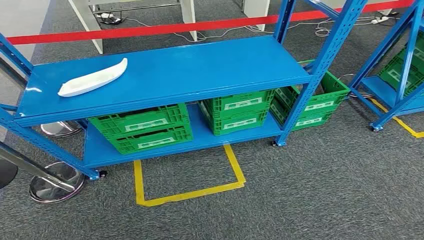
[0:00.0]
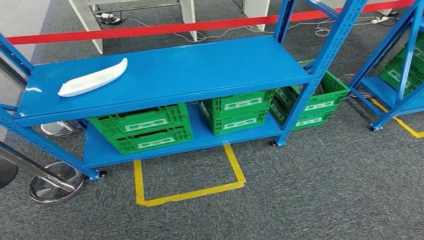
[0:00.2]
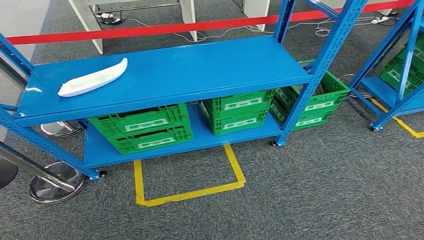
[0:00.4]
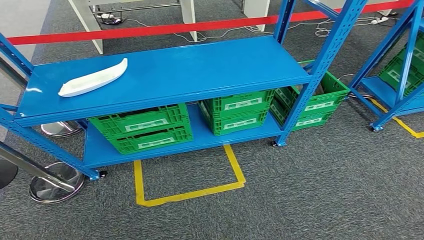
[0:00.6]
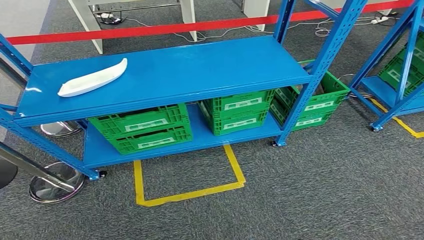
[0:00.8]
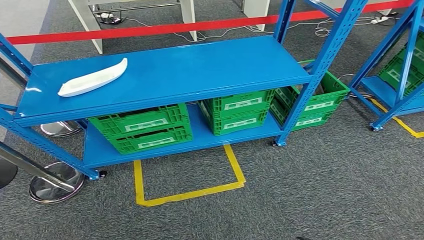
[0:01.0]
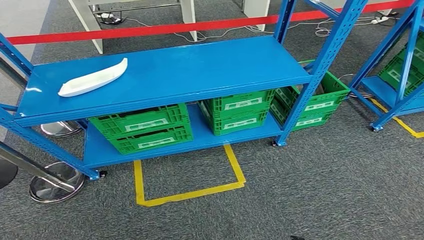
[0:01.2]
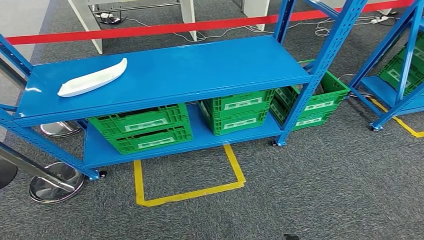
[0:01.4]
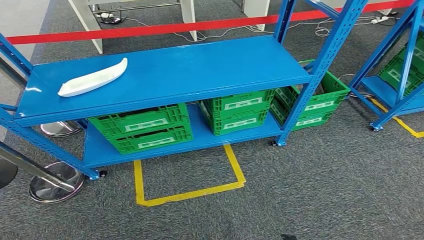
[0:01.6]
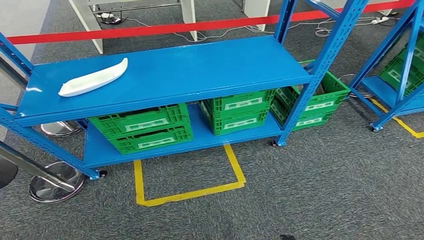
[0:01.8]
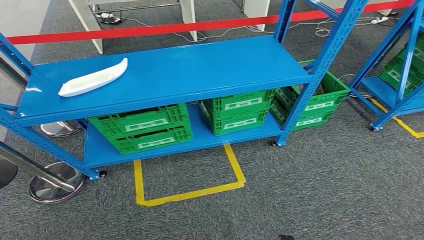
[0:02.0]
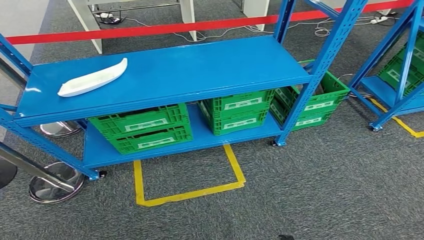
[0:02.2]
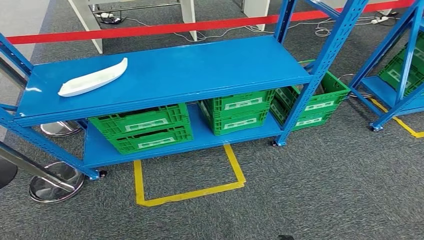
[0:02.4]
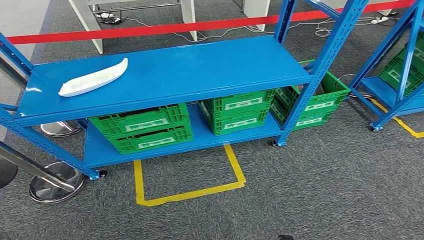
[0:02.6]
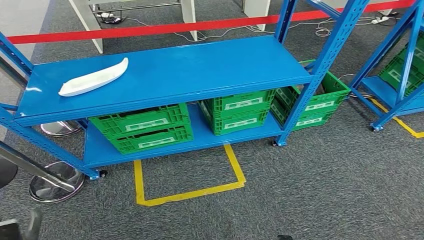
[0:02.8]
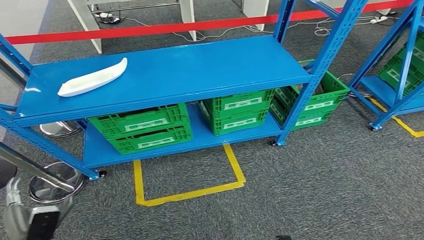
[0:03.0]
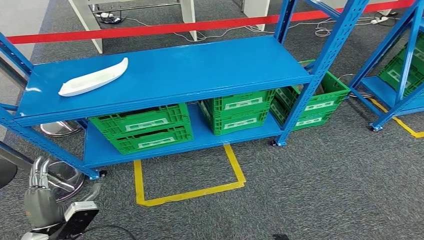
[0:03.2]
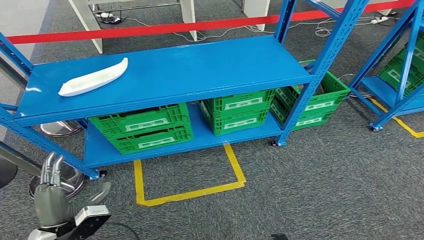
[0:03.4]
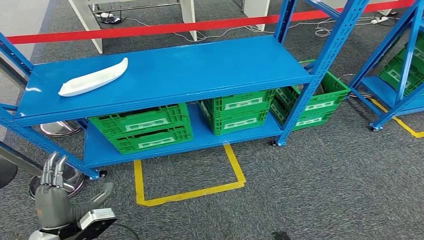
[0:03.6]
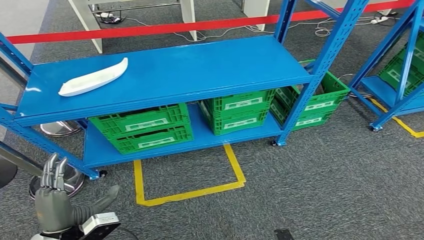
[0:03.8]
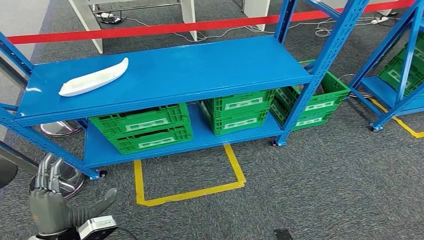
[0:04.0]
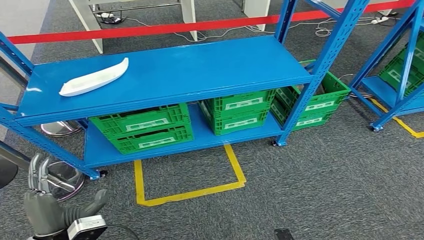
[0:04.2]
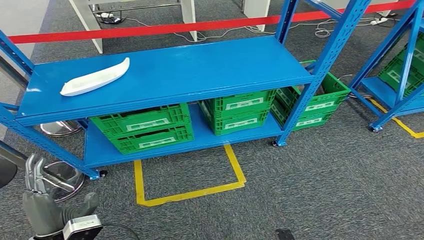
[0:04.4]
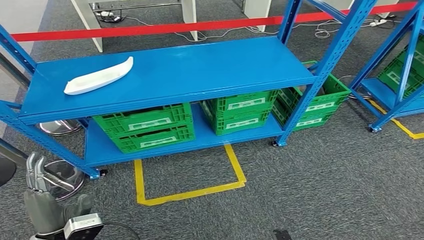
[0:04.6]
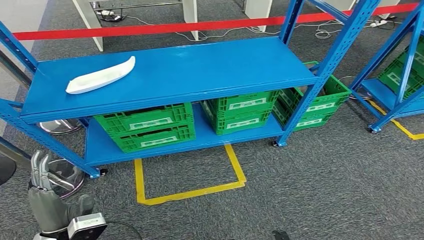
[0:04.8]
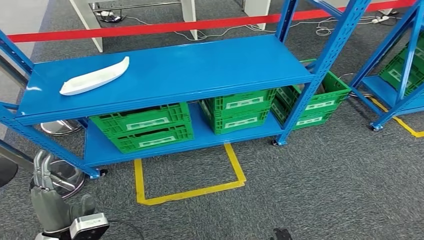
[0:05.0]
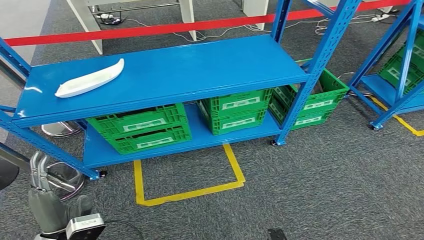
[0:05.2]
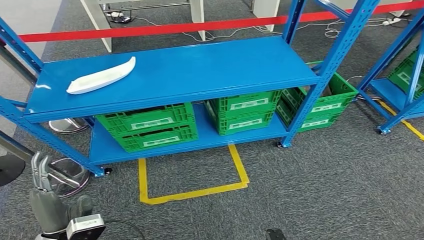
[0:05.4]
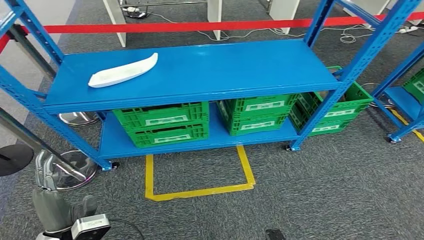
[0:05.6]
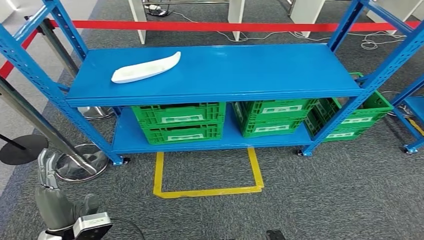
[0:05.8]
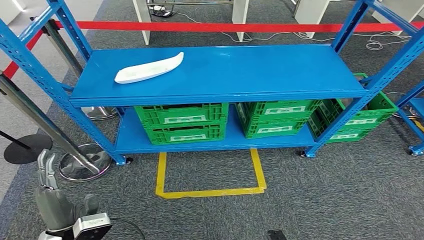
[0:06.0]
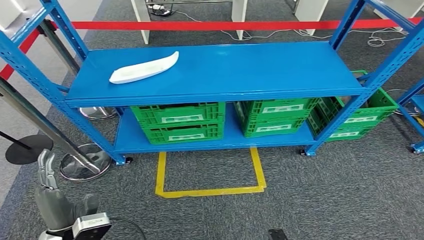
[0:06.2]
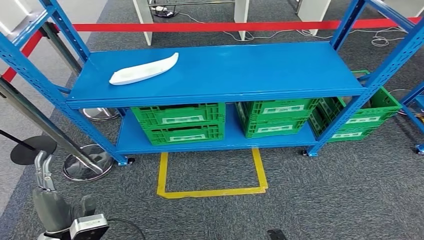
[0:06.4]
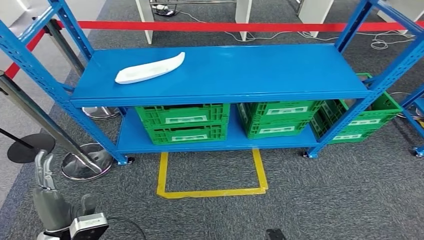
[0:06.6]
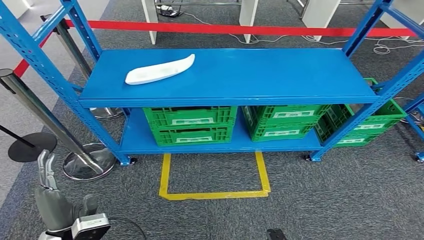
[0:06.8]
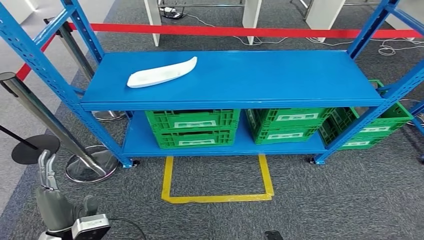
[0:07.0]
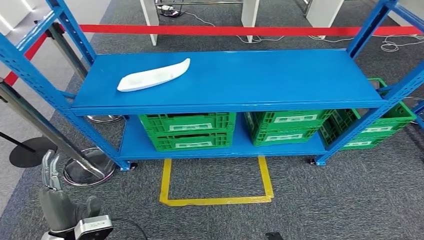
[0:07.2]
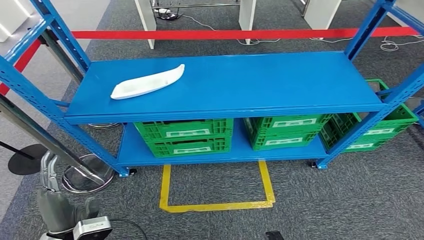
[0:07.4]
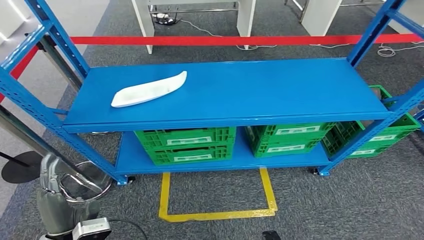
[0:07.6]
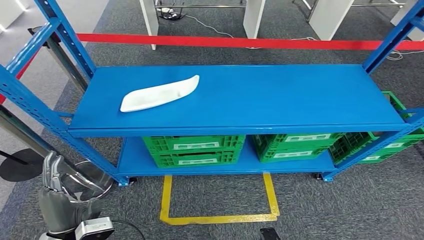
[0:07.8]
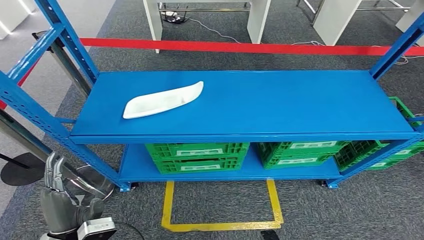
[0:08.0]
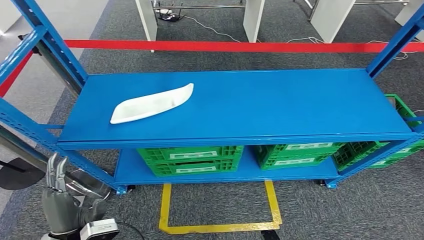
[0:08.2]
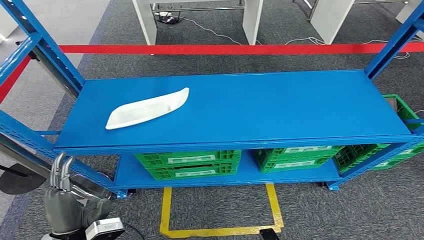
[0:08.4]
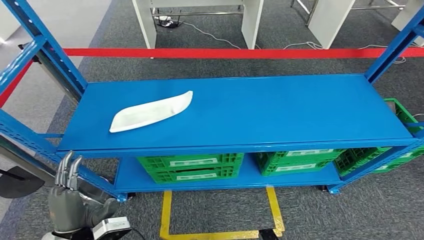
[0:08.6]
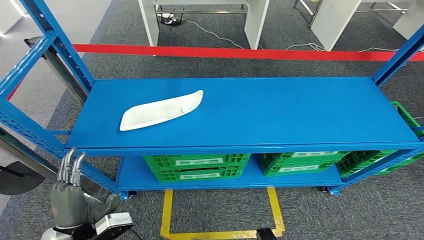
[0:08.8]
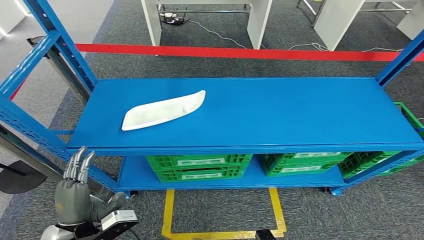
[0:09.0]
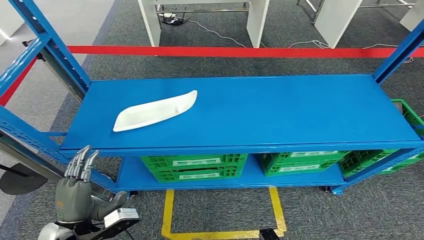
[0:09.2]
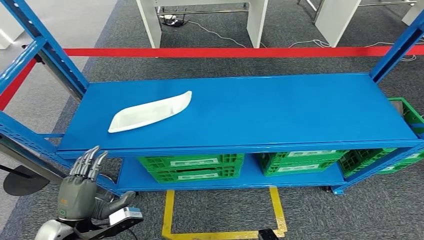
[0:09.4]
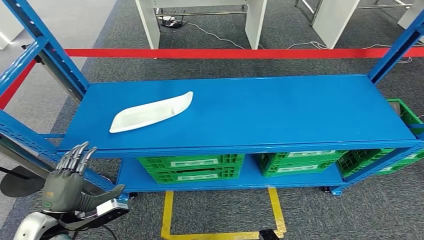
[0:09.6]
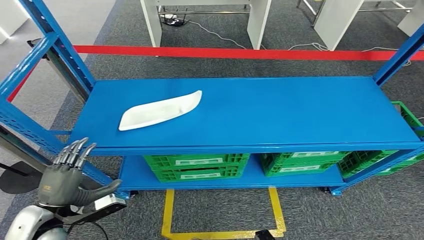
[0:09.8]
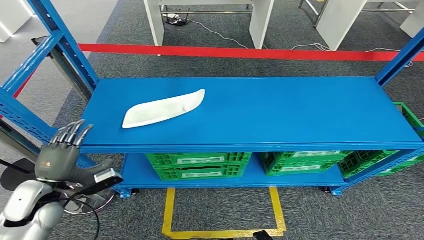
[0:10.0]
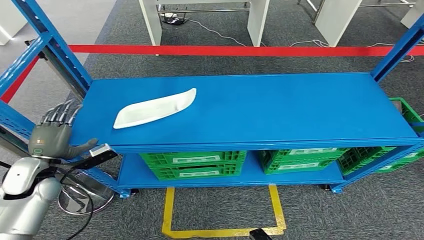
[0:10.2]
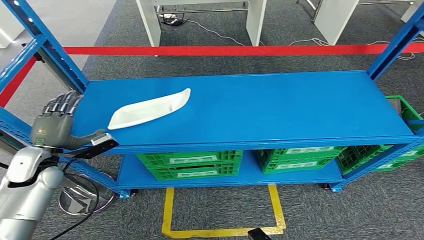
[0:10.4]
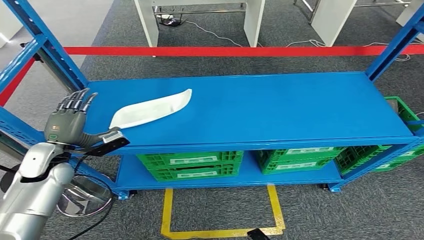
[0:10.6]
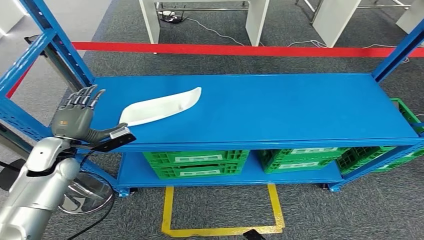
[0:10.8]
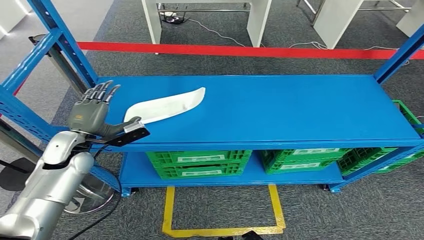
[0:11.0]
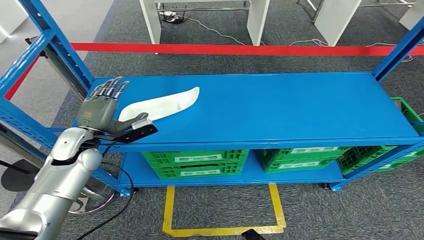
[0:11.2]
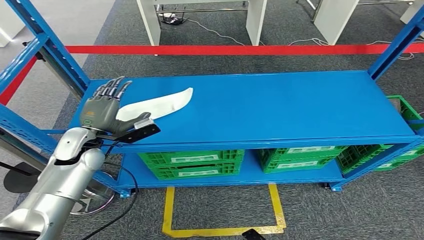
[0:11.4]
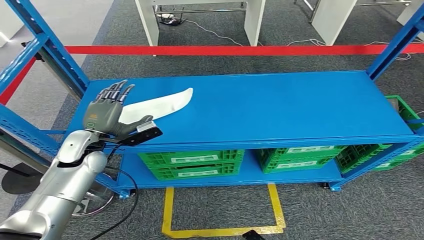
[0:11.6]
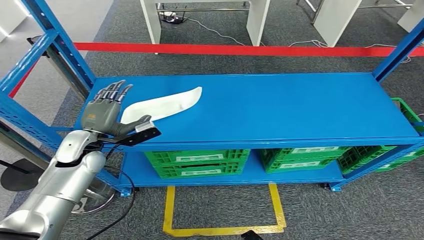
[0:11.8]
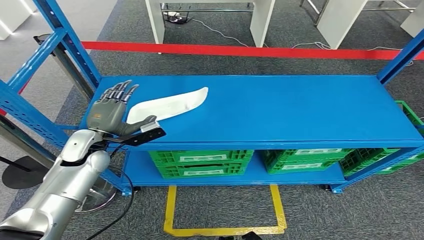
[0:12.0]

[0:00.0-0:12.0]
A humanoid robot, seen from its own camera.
0:01.6 to 0:03.0: The left hand travels upward, forward and to the left by roughly 20 cm.
0:03.0 to 0:04.4: The left hand is displaced upward and to the right by roughly 15 cm.

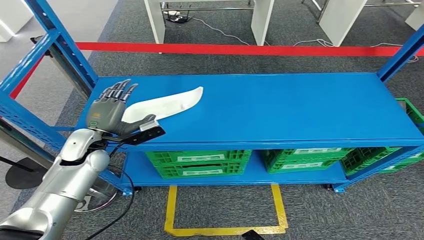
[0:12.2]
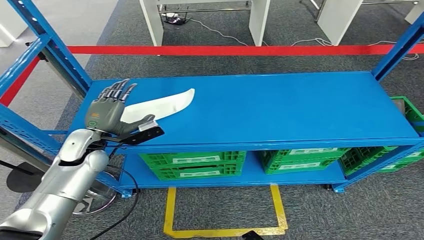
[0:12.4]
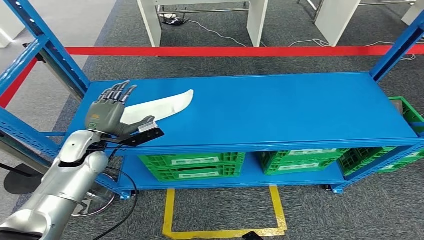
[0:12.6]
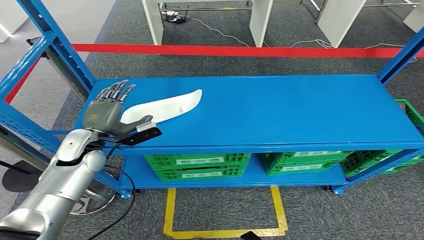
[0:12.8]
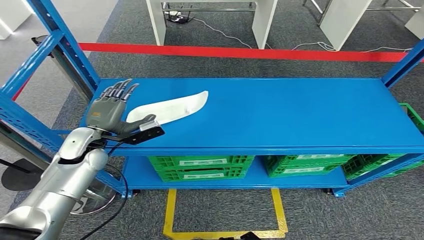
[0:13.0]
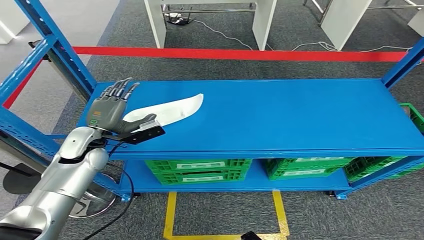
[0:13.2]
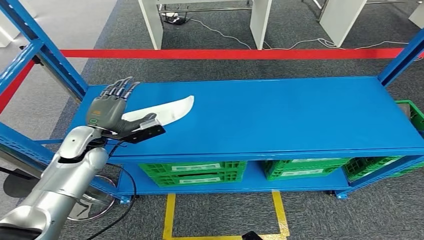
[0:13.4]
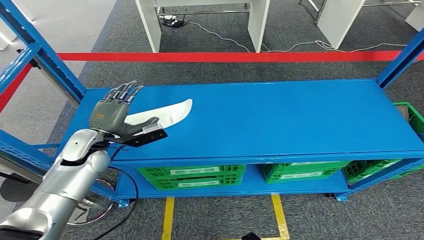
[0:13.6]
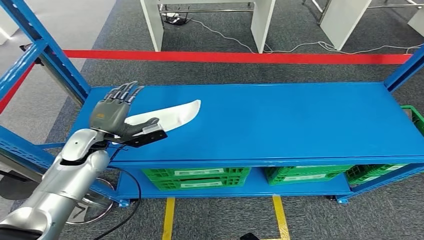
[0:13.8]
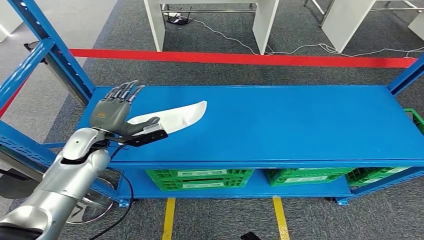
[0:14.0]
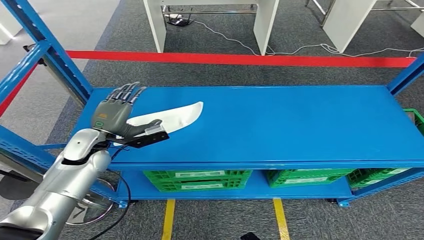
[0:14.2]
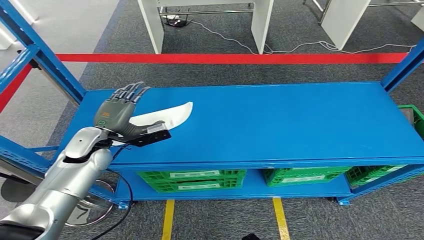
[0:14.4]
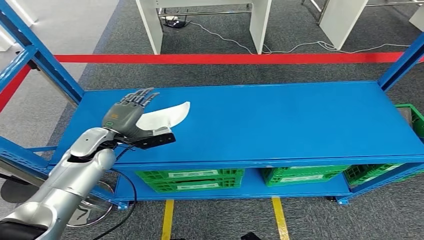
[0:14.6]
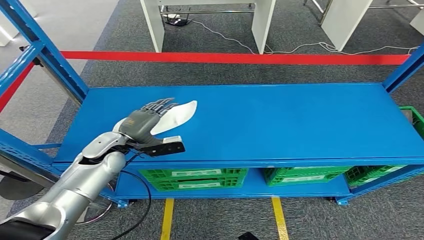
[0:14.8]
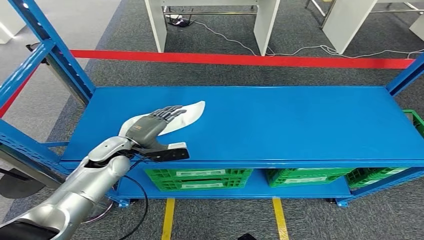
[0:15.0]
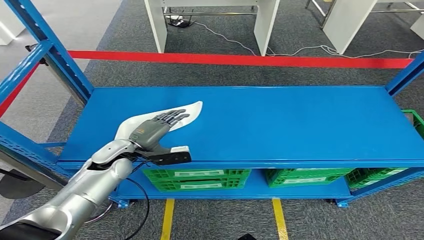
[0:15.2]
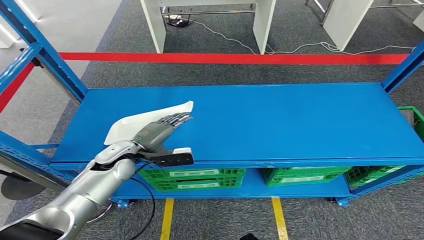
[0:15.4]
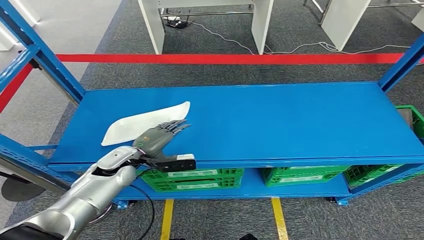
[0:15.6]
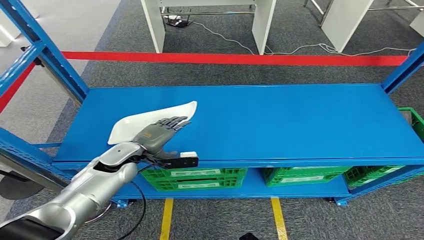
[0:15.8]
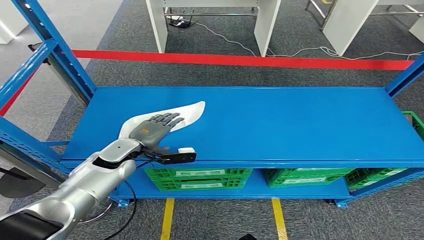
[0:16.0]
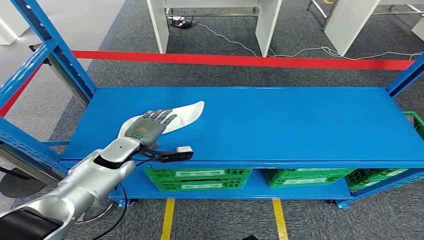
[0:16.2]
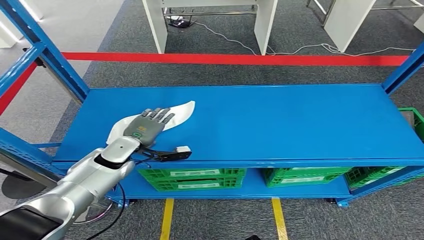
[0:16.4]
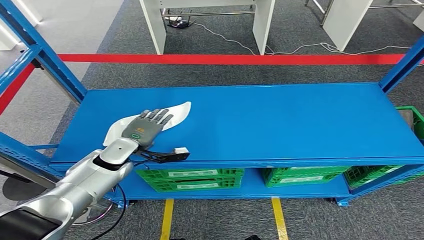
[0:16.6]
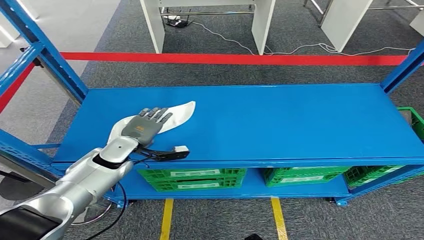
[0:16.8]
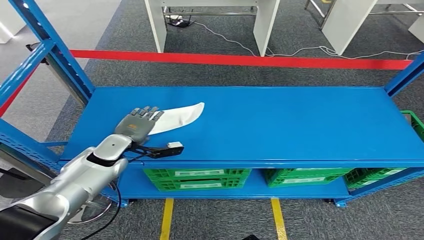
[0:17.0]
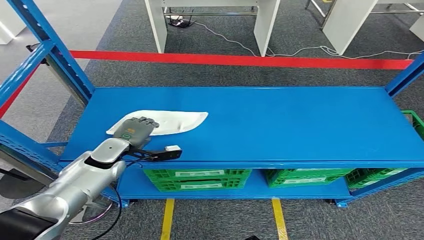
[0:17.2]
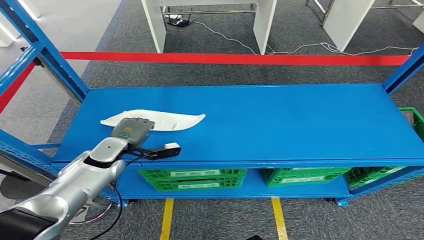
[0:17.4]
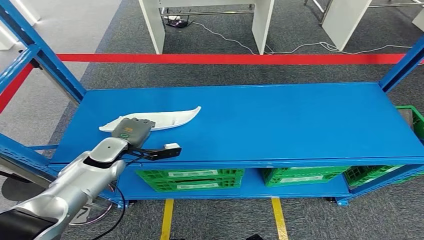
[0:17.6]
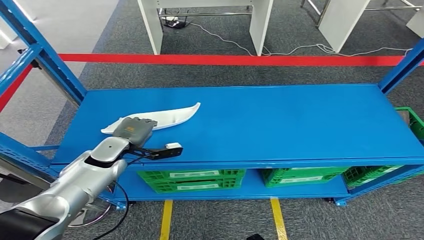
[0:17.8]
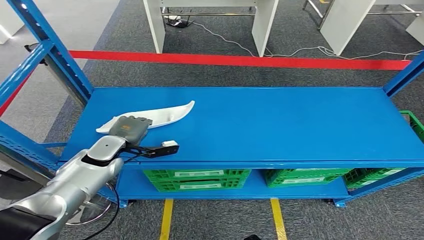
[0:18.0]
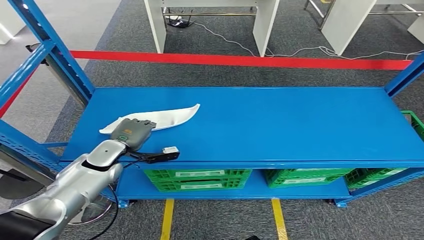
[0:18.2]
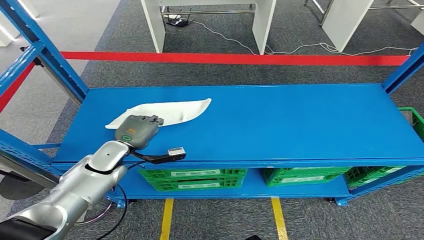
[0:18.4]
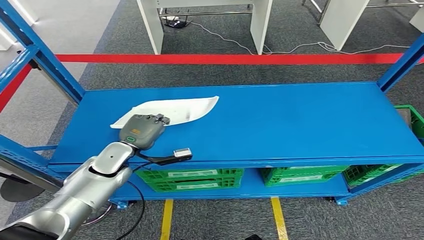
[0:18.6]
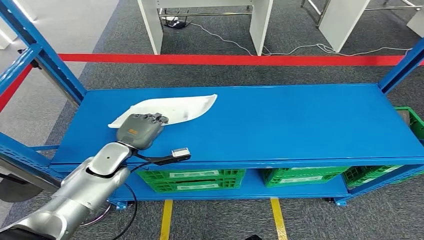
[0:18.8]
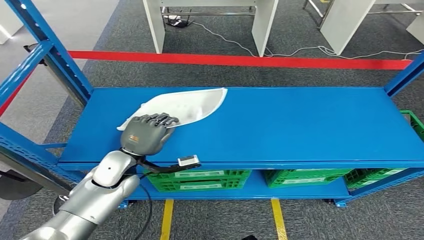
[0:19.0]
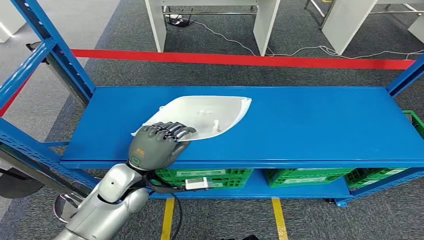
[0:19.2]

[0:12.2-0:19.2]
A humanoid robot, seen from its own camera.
0:16.4 to 0:17.8: The hands move only a little.
